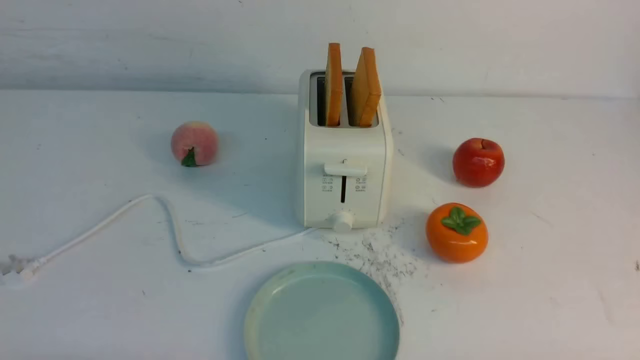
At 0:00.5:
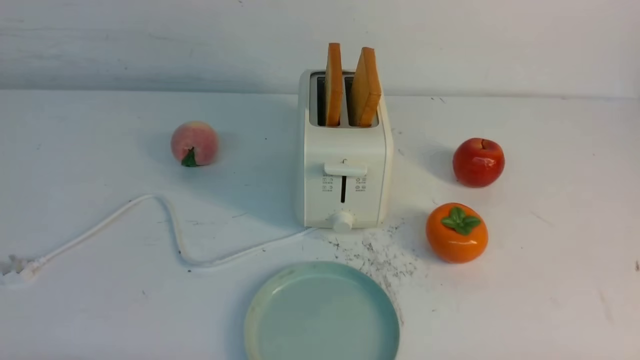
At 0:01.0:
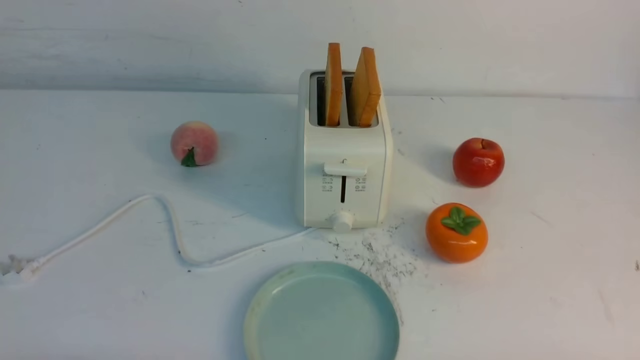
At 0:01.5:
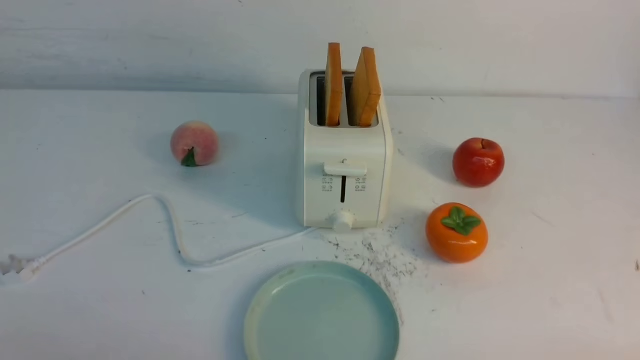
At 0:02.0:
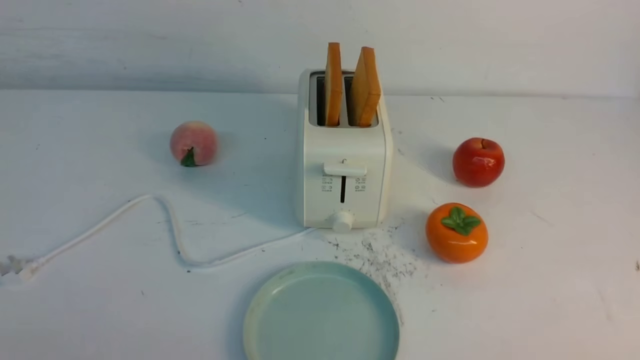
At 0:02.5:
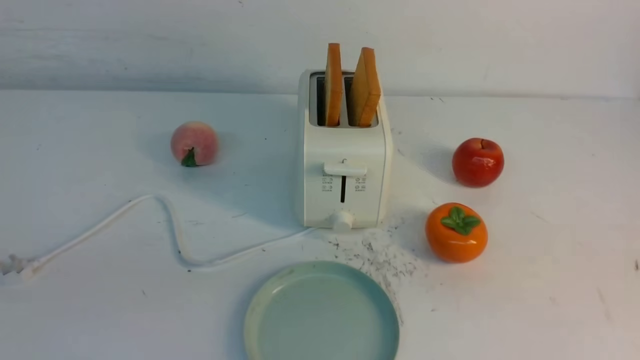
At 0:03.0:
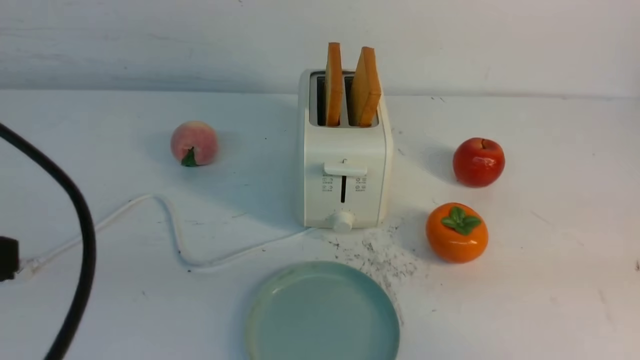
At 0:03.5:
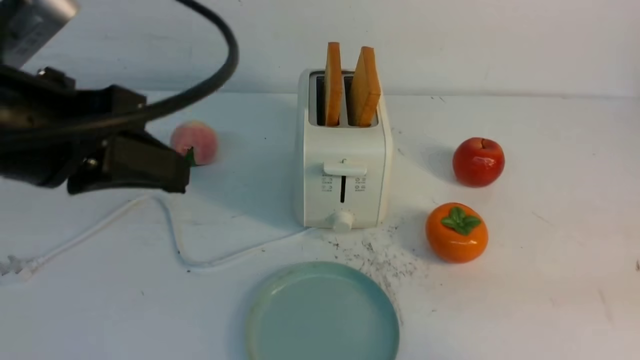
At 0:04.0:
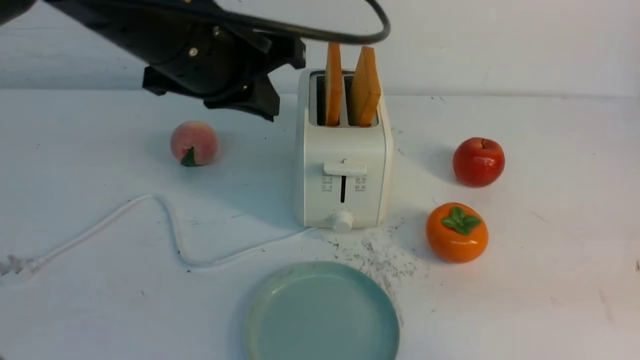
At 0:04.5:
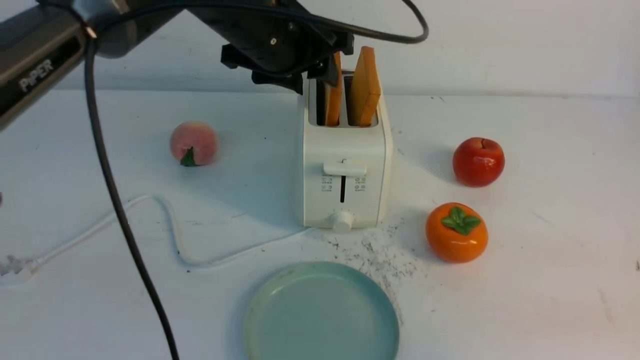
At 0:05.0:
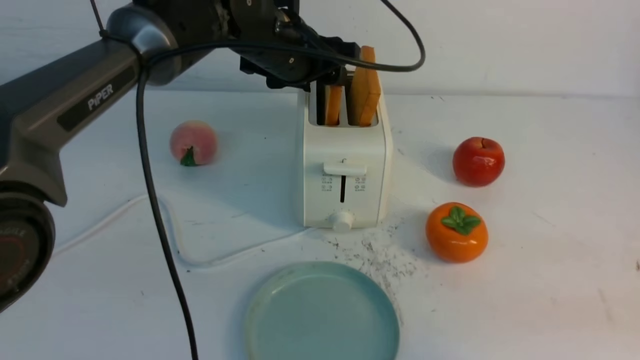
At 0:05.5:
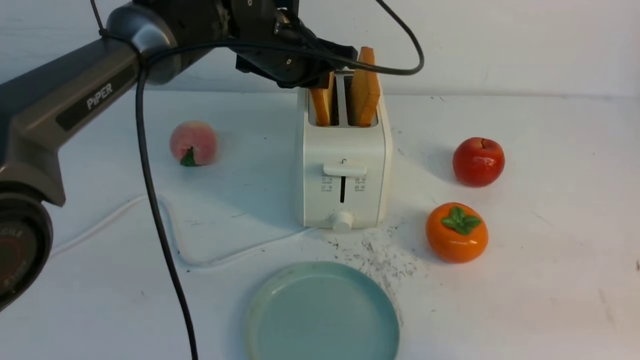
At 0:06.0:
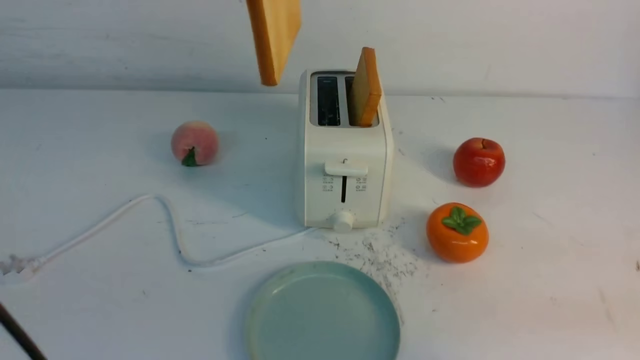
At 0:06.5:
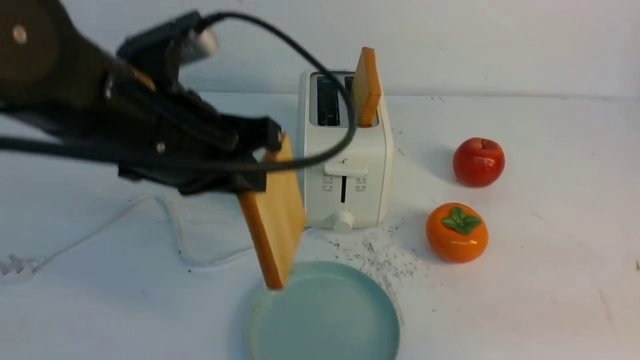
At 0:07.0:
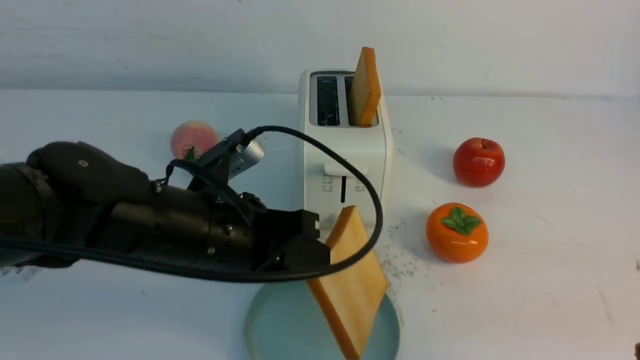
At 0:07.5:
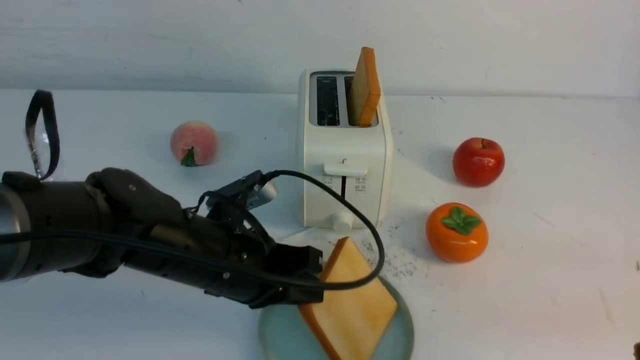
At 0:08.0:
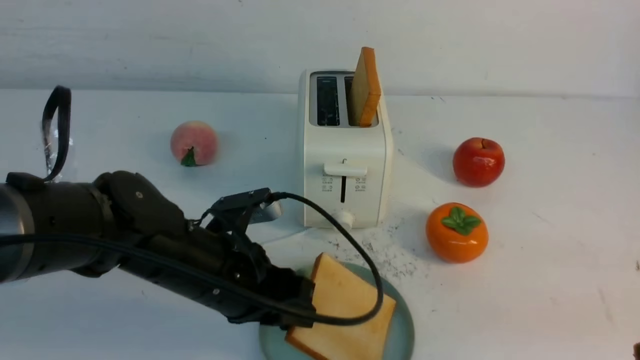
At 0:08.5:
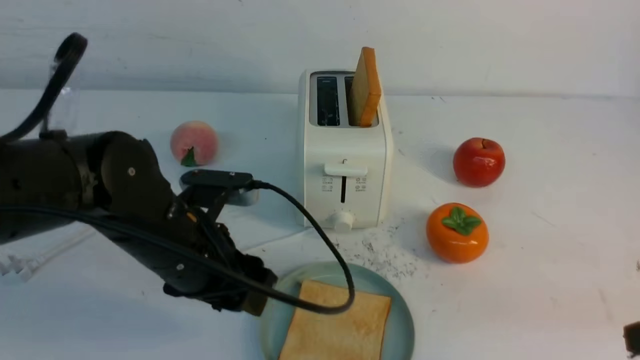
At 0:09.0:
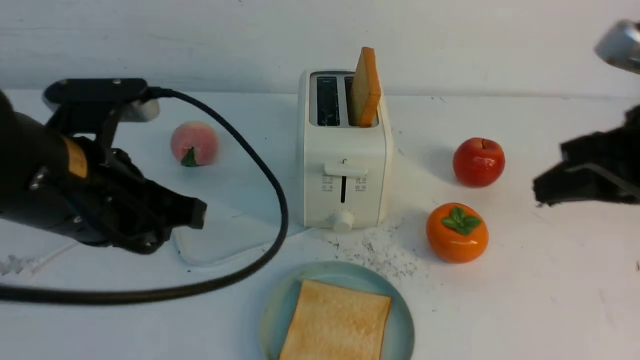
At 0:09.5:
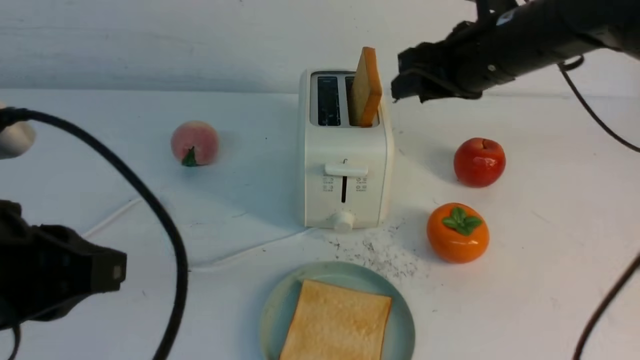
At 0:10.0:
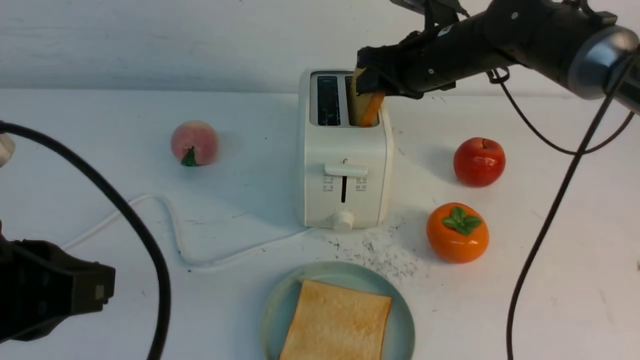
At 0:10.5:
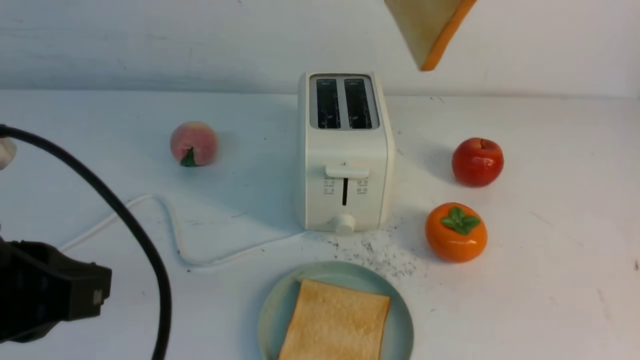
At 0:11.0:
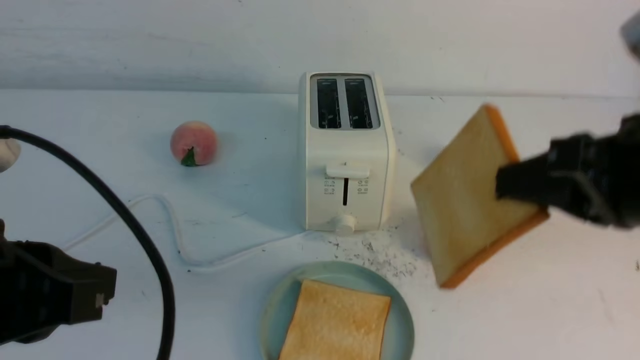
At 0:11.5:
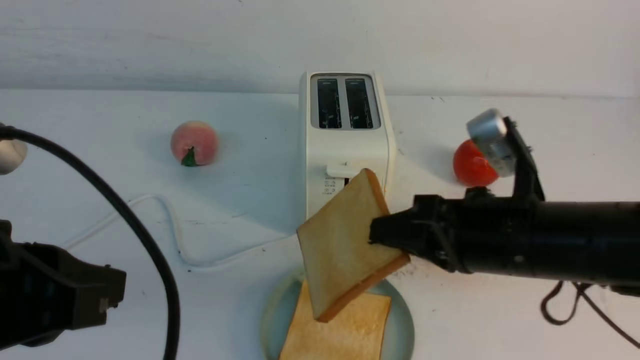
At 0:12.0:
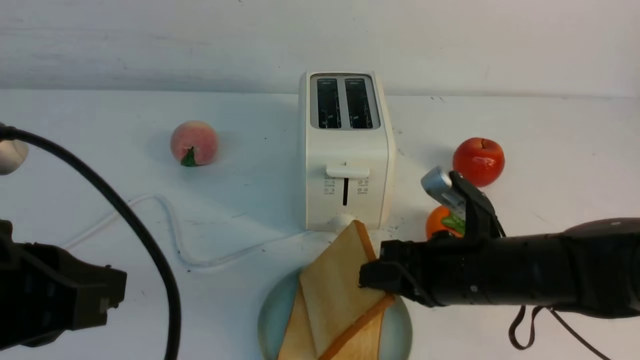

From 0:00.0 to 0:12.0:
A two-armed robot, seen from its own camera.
Task of the whole recording: take toasted bread from bread machine on white table place on plate.
Step, from 0:00.0 to 0:05.5: use the left arm to take out a slice of bread.
Step, from 0:06.0 to 0:08.0: use the left arm to put a slice of bread into the empty plate.
Step, from 0:08.5 to 0:10.0: use the right arm to take out a slice of bread.
From 0:02.0 to 0:04.0: The right gripper moves upward and forward, roughly 15 cm, and closes its fingers; the left gripper is displaced forward, to the right and upward by approximately 35 cm, and closes.
From 0:04.0 to 0:06.0: The left gripper shifts about 5 cm upward, goes forward and returns, approximately 15 cm each way, and opens, then closes once more.
From 0:06.0 to 0:08.0: The left gripper shifts approximately 25 cm downward, and opens.
From 0:08.0 to 0:10.0: The left gripper travels upward, backward and to the left by about 20 cm, and closes up; the right gripper heads forward and to the left, covering approximately 35 cm.
From 0:10.0 to 0:12.0: The right gripper shifts some 25 cm backward and downward.

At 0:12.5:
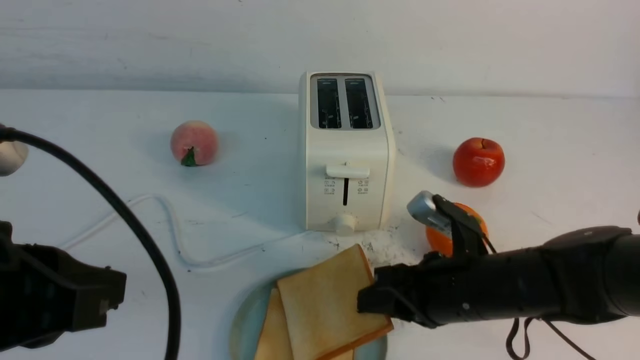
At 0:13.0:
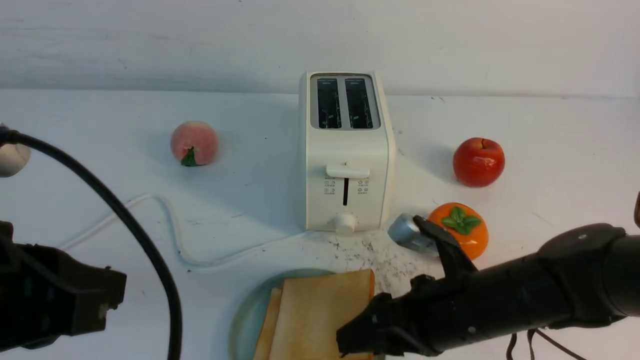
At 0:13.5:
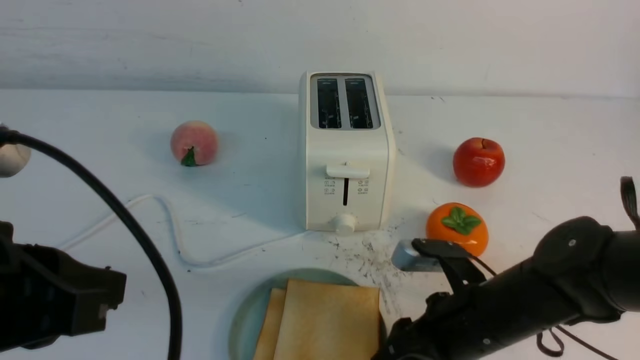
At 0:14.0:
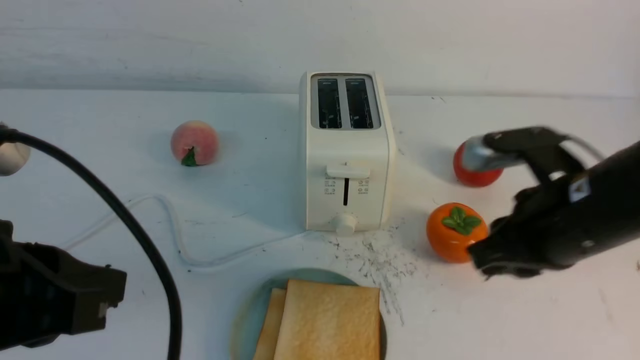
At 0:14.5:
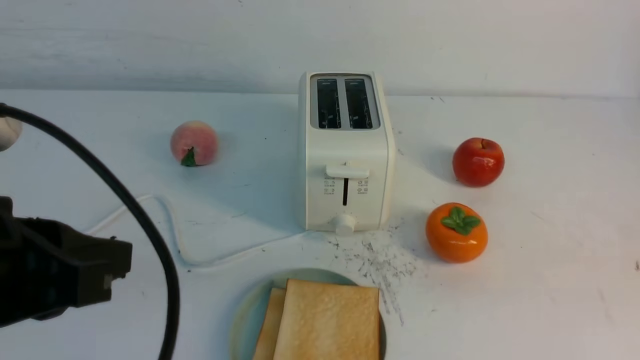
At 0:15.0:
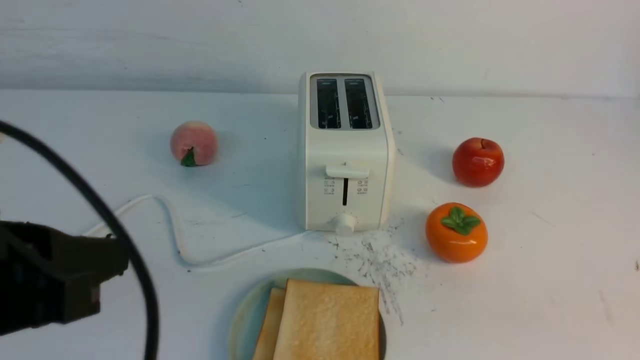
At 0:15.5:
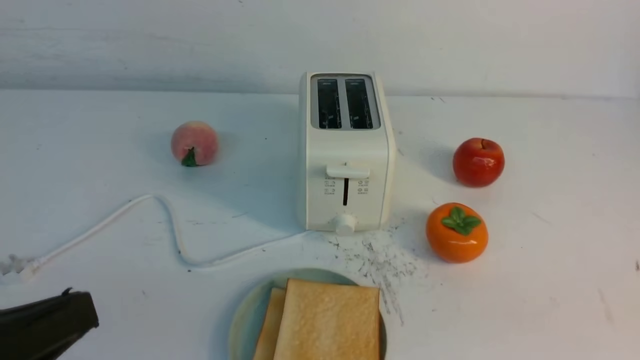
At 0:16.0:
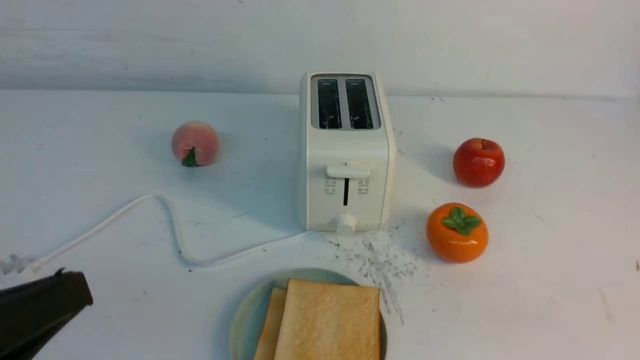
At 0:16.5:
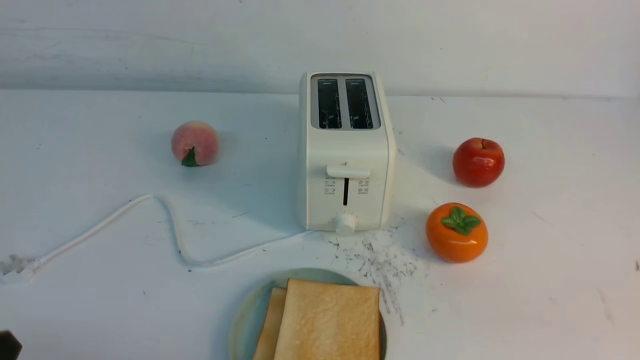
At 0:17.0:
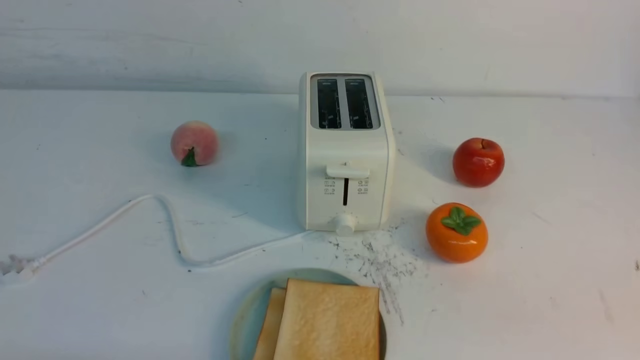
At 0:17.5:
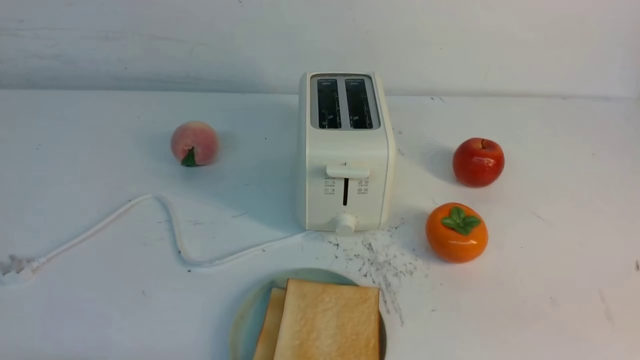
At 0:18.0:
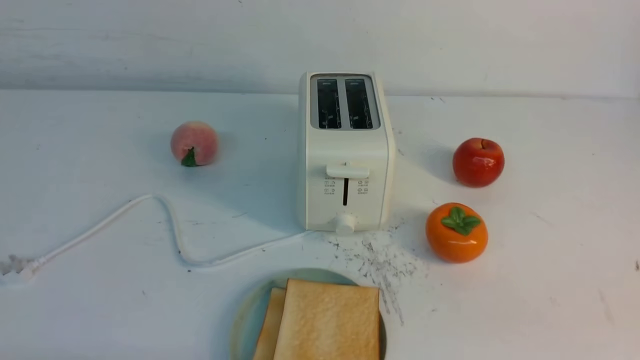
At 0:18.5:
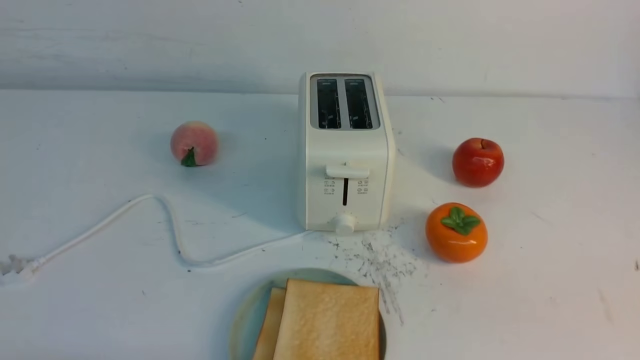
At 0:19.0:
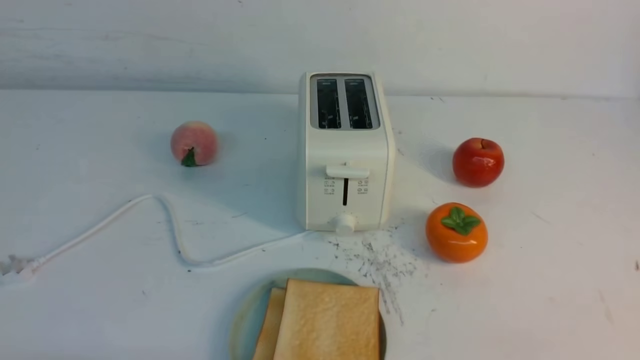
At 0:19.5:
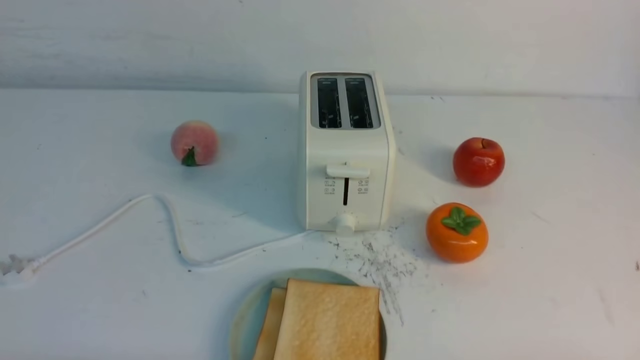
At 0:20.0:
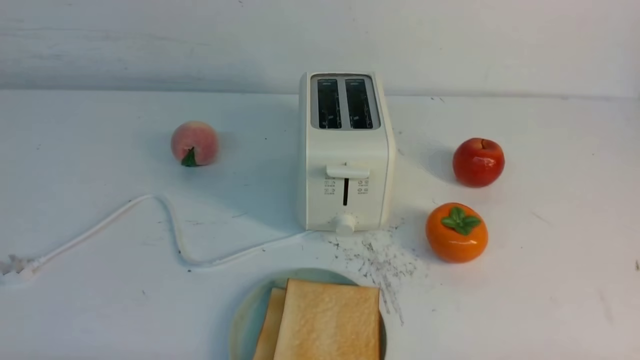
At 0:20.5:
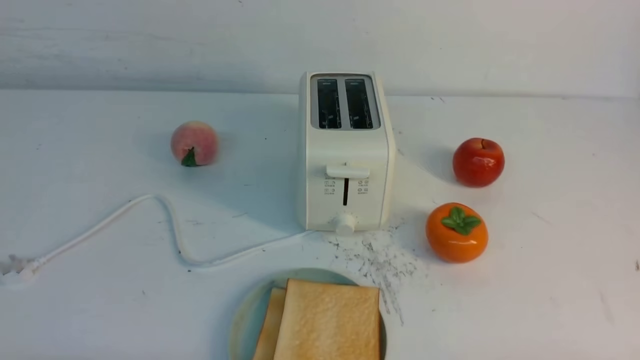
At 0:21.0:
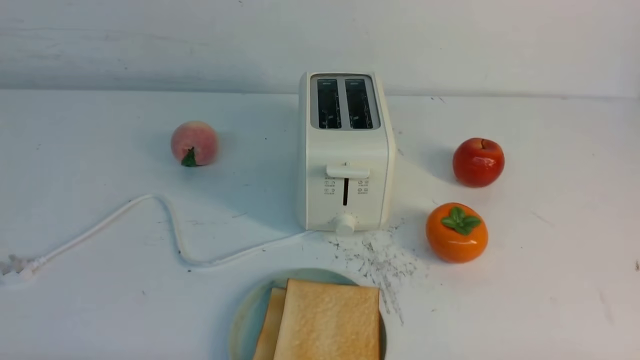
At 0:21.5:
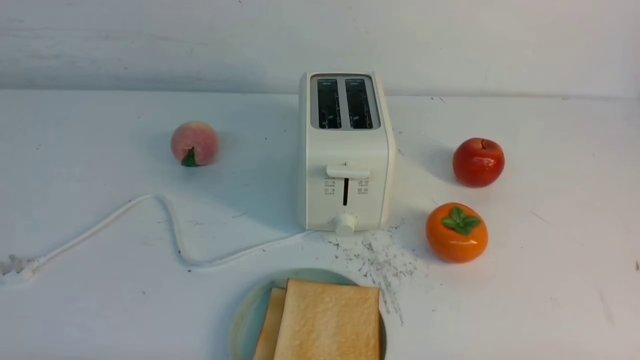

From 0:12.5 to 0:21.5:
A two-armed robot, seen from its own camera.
Task of the whole recording: take toasted bread from bread machine on white table place on plate.
From 0:12.5 to 0:14.5: The right gripper moves backward, upward and to the right, about 35 cm, and closes up.
From 0:14.5 to 0:17.0: The left gripper is displaced downward and backward by approximately 20 cm.
From 0:19.5 to 0:21.5: The two grippers keep their place.
